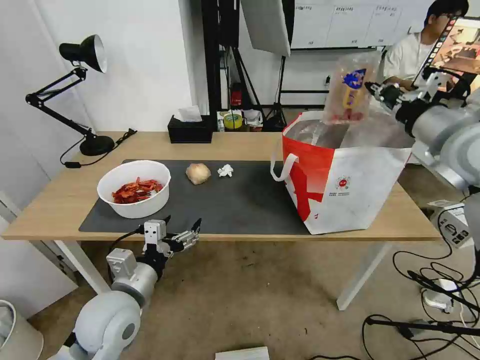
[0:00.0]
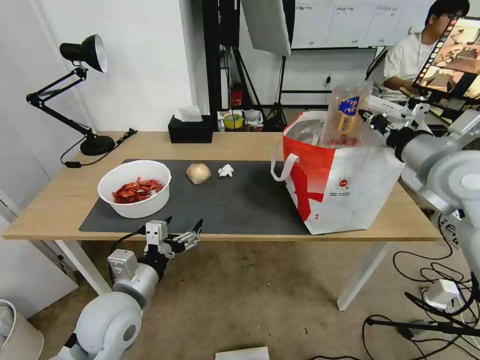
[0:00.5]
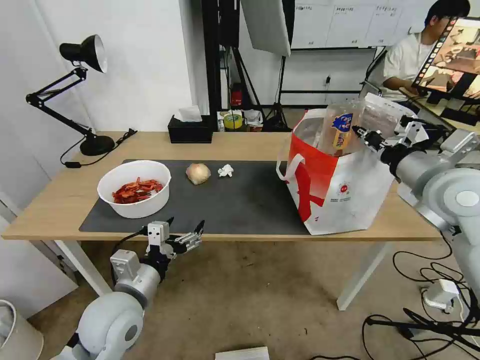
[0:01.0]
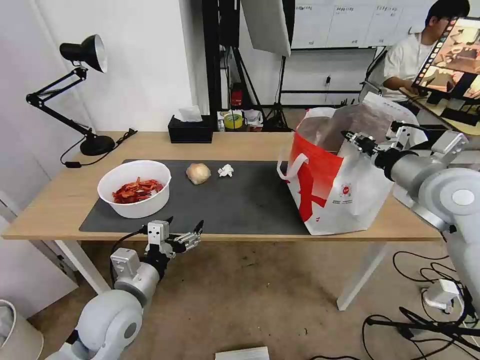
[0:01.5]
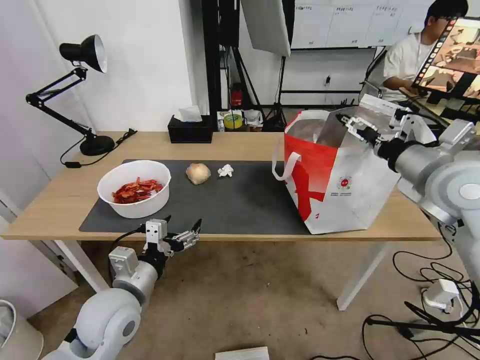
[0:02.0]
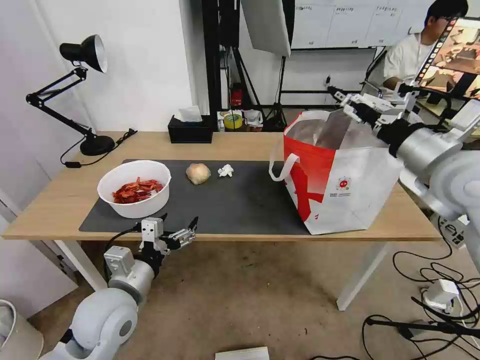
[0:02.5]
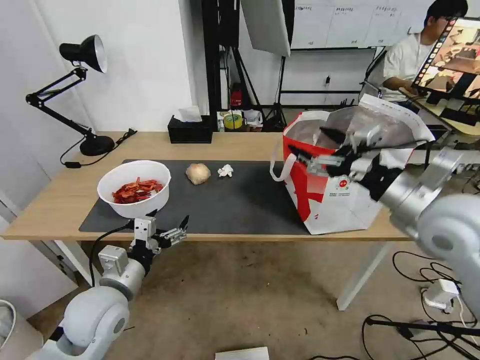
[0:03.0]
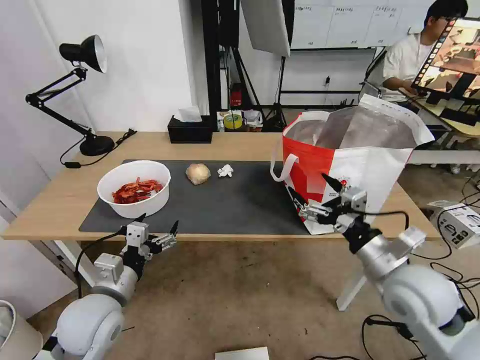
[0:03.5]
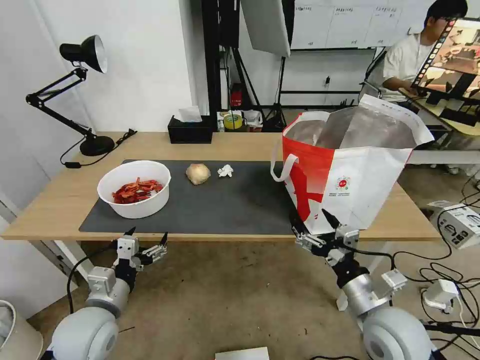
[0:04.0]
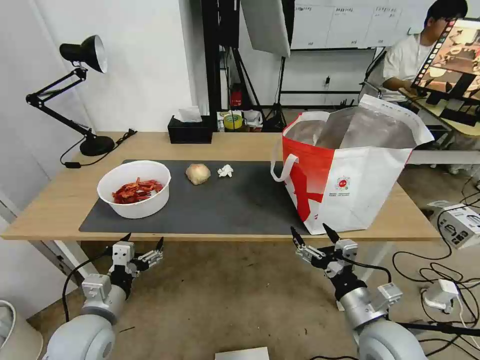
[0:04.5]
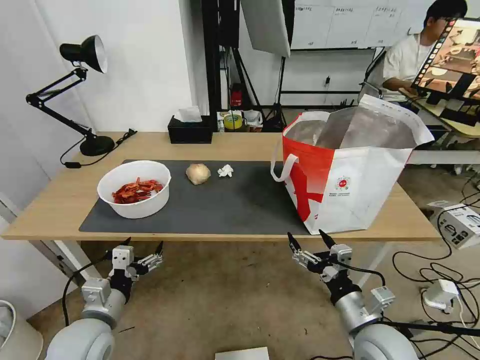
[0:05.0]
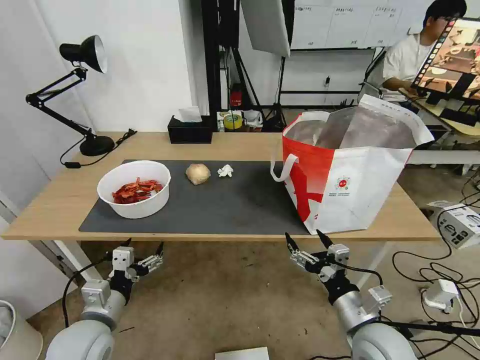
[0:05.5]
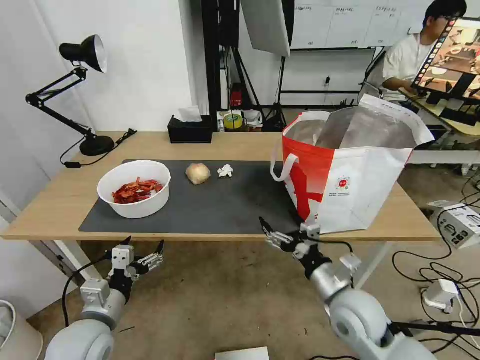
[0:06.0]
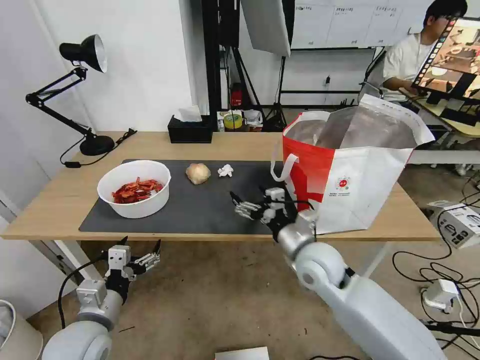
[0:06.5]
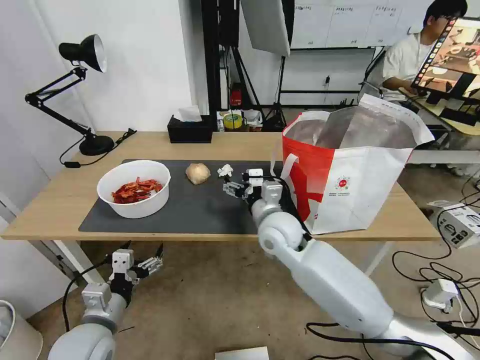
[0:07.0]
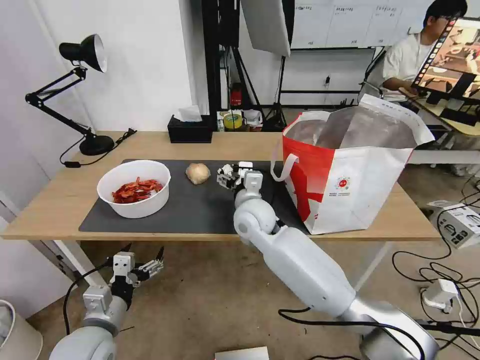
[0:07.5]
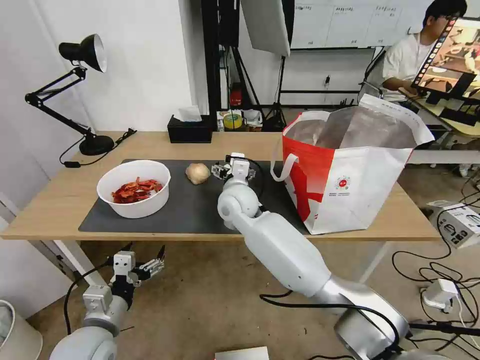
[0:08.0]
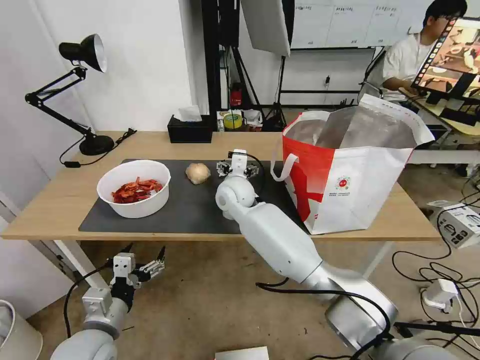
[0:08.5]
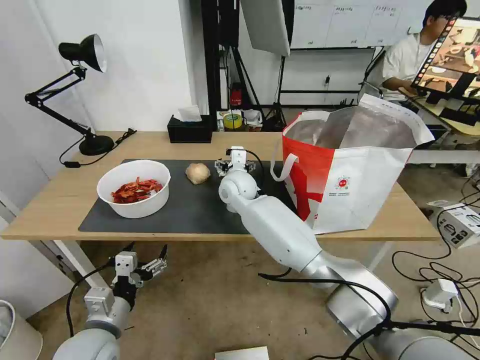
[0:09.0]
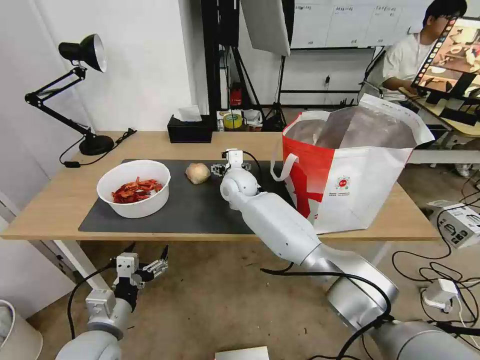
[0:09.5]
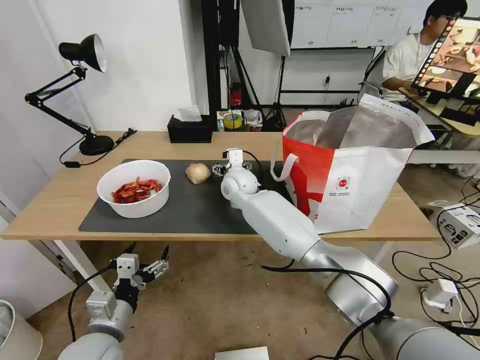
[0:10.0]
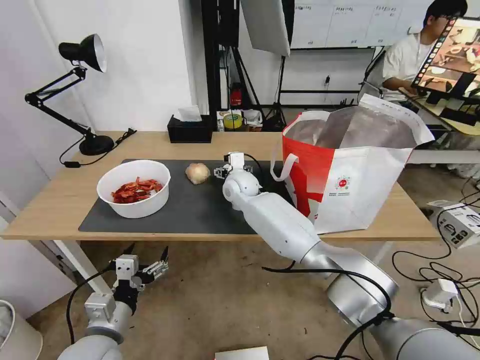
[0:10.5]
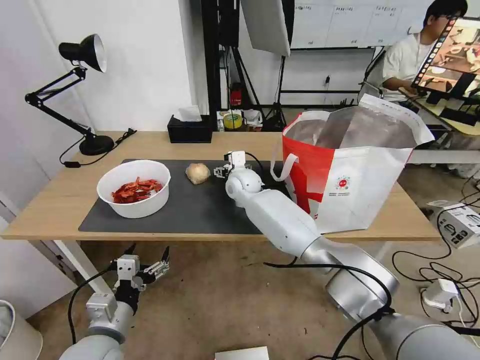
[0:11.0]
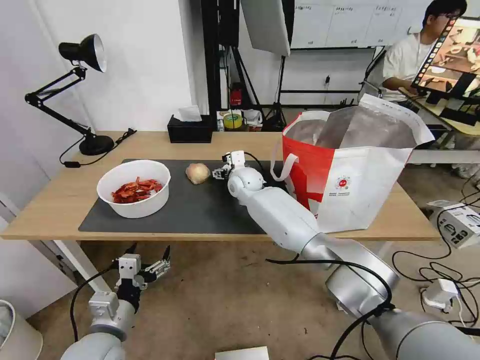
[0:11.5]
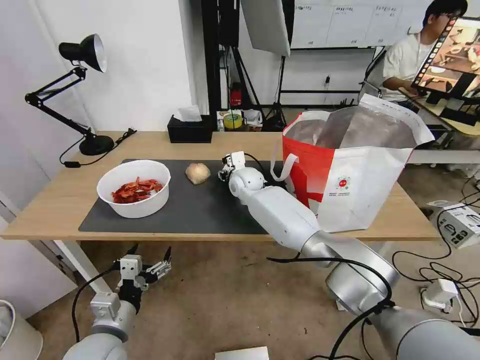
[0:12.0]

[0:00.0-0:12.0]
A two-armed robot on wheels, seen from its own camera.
Task of the whole recording: Pick up the trash from the table and place it into the takeout bag.
0:00.0 to 0:02.0: The right gripper travels downward by some 5 cm, and opens its fingers.
0:02.0 to 0:04.0: The left gripper goes roughly 5 cm to the left. The right gripper goes approximately 30 cm downward, backward and to the left.
0:04.0 to 0:06.0: The right gripper shifts by about 5 cm.
0:06.0 to 0:08.0: The right gripper travels to the left and forward by about 30 cm.
0:08.0 to 0:10.0: The right gripper moves forward, about 10 cm.
0:10.0 to 0:12.0: The right gripper closes.

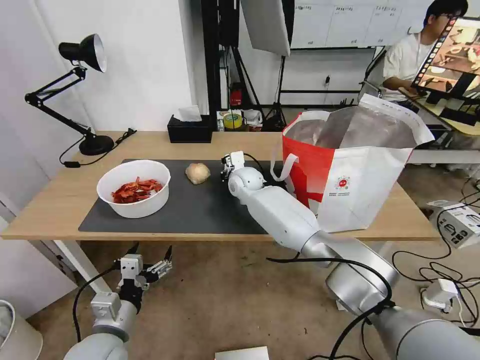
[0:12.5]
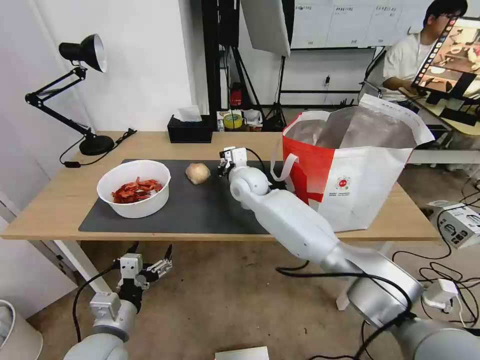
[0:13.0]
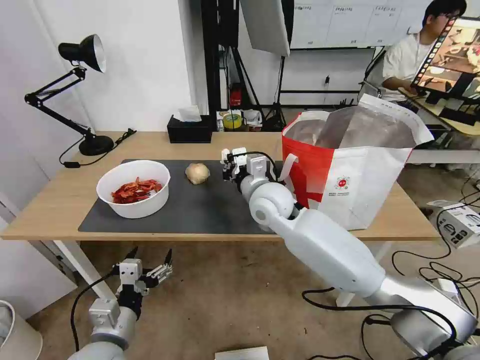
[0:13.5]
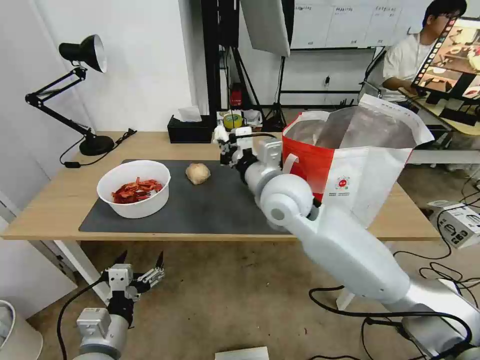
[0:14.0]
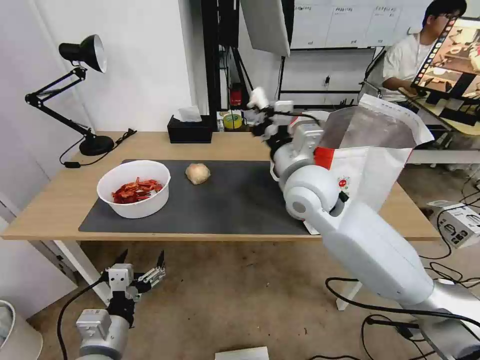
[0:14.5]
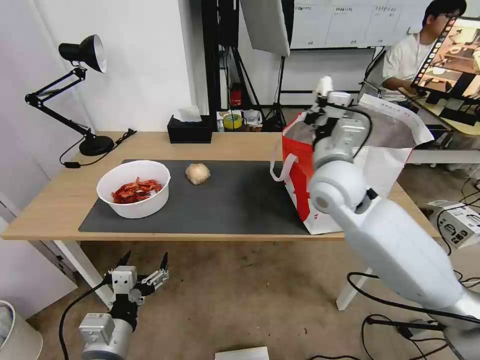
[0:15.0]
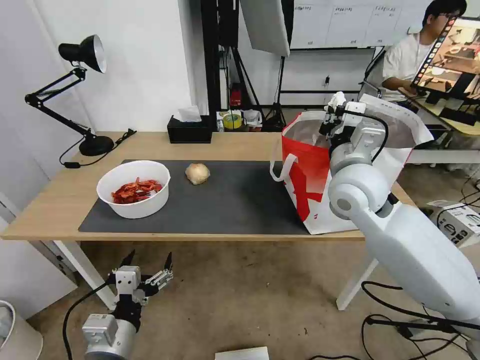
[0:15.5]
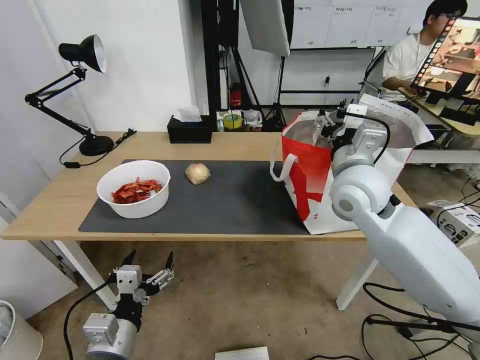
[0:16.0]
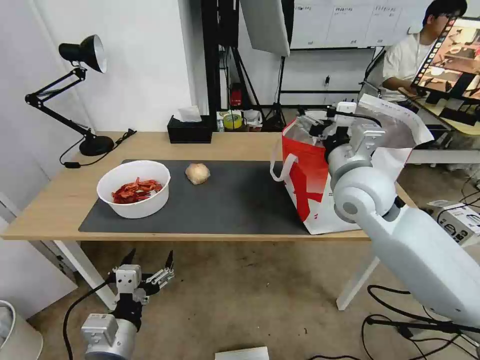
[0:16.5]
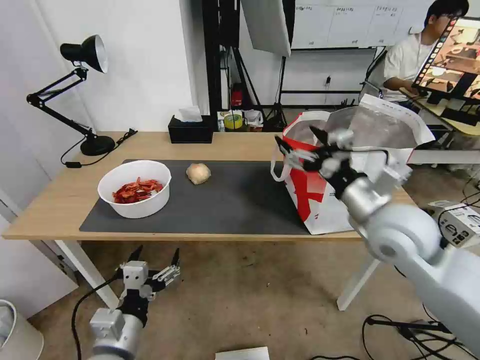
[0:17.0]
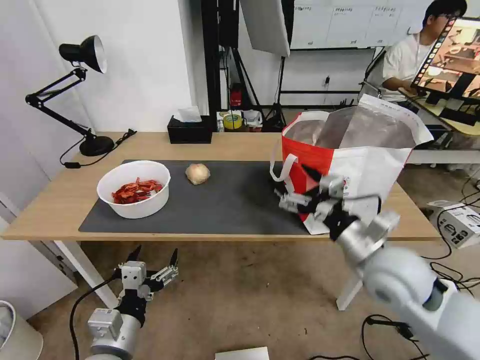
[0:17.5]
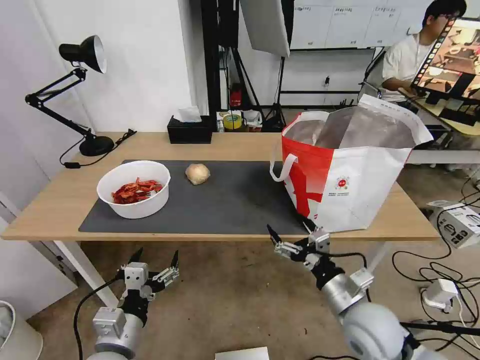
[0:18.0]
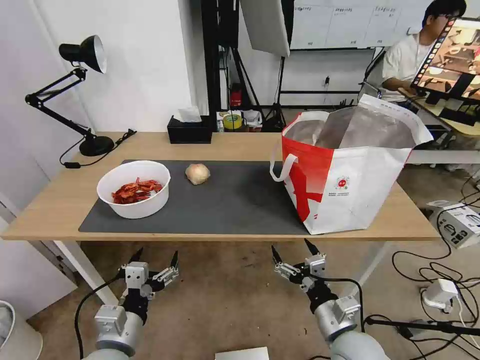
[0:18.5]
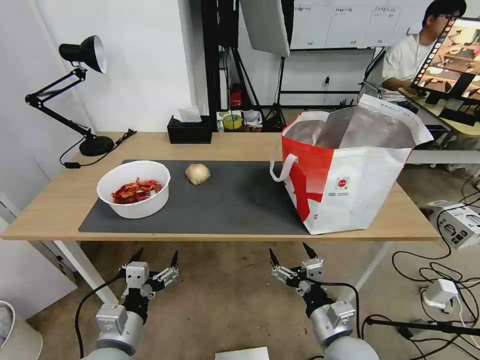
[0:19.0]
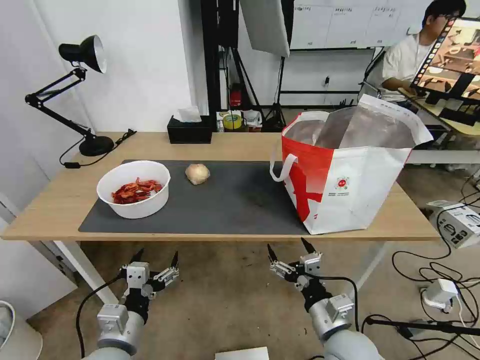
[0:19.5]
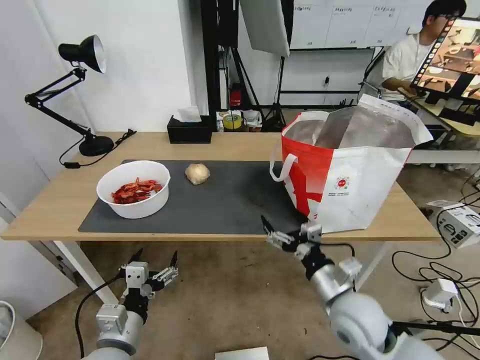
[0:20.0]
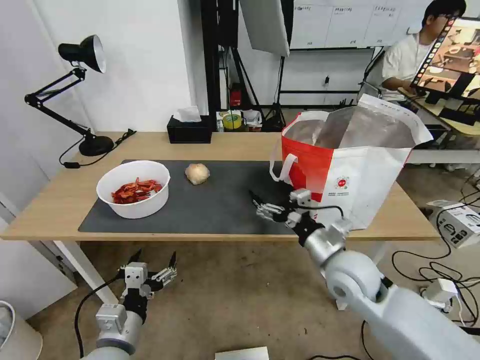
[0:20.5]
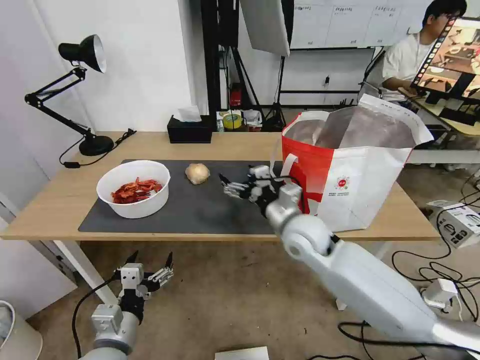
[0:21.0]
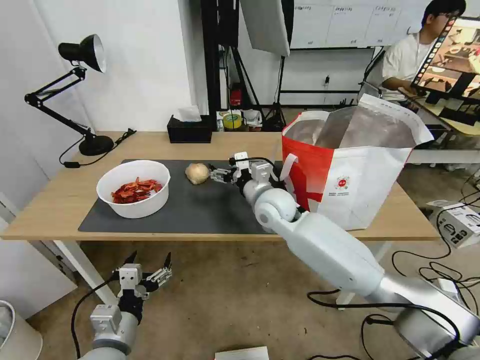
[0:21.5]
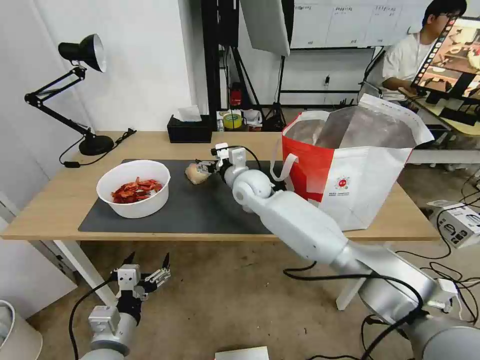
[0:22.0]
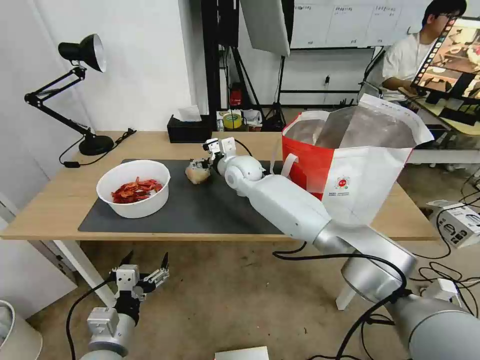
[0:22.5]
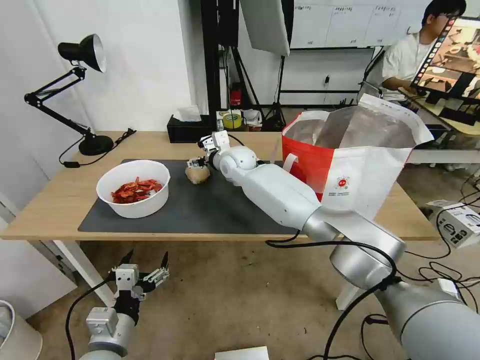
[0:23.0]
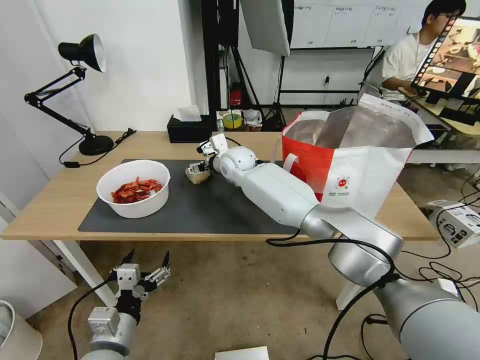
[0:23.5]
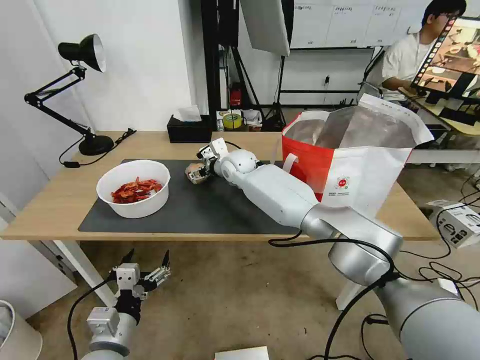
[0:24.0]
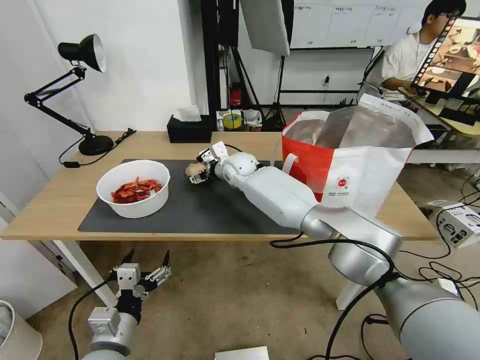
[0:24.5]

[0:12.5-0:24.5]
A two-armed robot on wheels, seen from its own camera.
Task of the whole recording: Pick up the trash from the table and place it into the takeout bag.
0:12.5 to 0:14.5: The right gripper heads backward, upward and to the right, covering approximately 25 cm.
0:14.5 to 0:16.5: The right gripper shifts roughly 10 cm to the right, and opens up.
0:16.5 to 0:18.5: The right gripper is displaced downward and backward by roughly 30 cm.
0:18.5 to 0:20.5: The right gripper shifts approximately 15 cm forward and upward.
0:20.5 to 0:22.5: The right gripper moves forward and to the left, about 35 cm.
0:22.5 to 0:24.5: The grippers make only small movements.

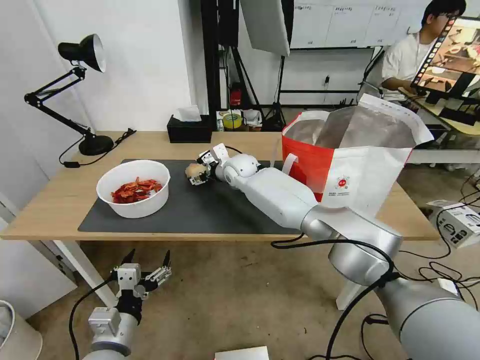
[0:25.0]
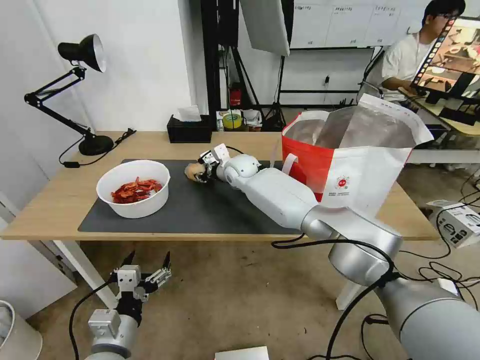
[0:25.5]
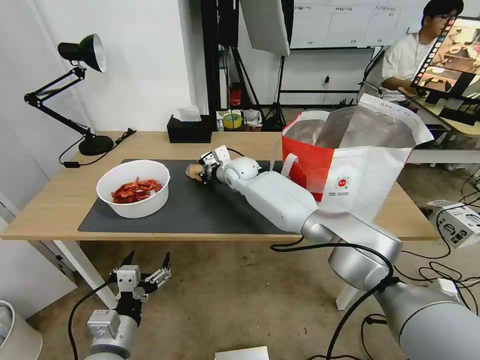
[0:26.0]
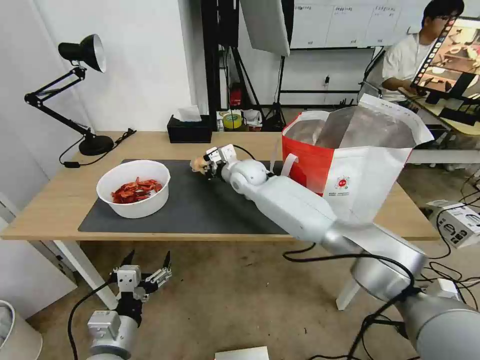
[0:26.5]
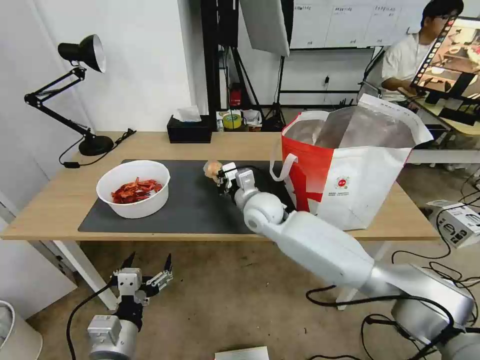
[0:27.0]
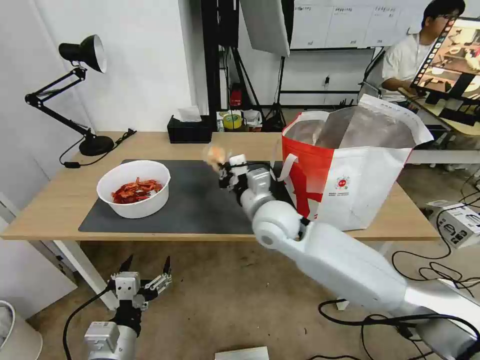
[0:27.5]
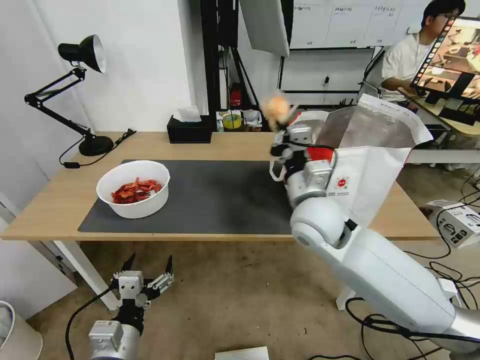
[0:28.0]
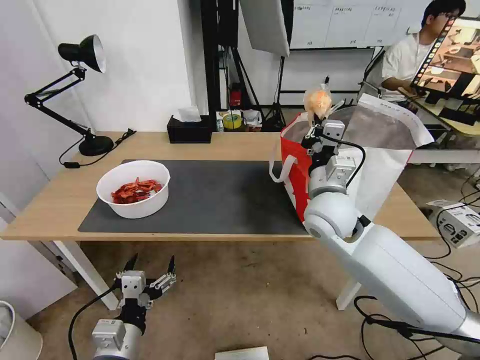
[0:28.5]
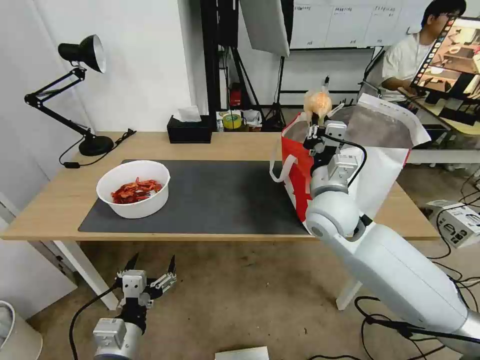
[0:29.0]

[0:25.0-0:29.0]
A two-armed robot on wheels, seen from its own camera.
Task of the whole recording: Pick up the trash from the table and place it into the takeout bag.
0:25.0 to 0:27.0: The right gripper shifts about 15 cm backward, and closes its fingers.
0:27.0 to 0:29.0: The right gripper is displaced to the right, upward and backward by about 15 cm.
